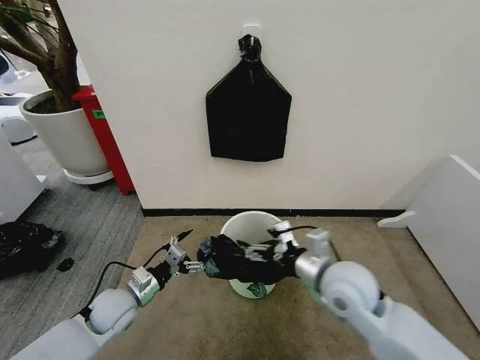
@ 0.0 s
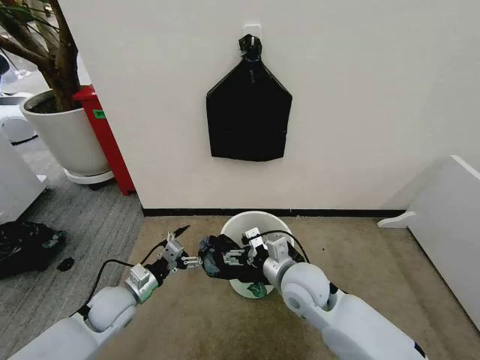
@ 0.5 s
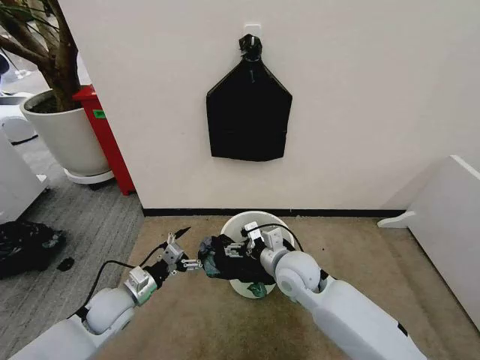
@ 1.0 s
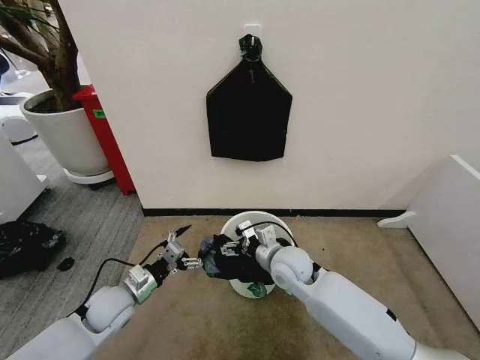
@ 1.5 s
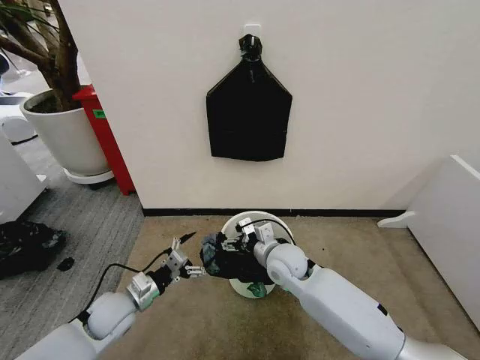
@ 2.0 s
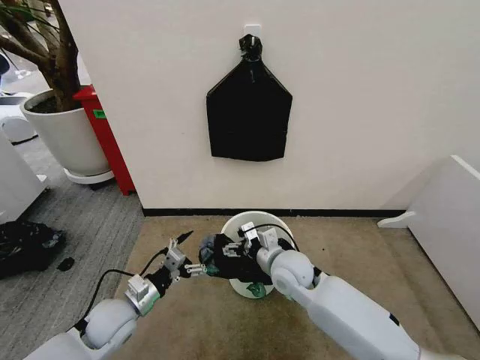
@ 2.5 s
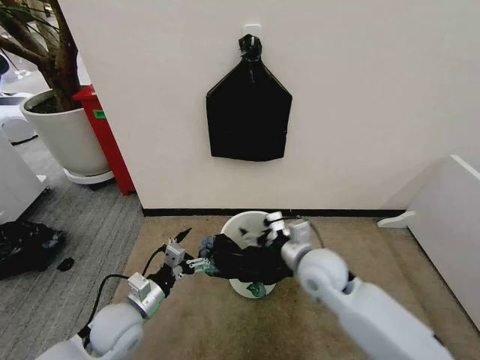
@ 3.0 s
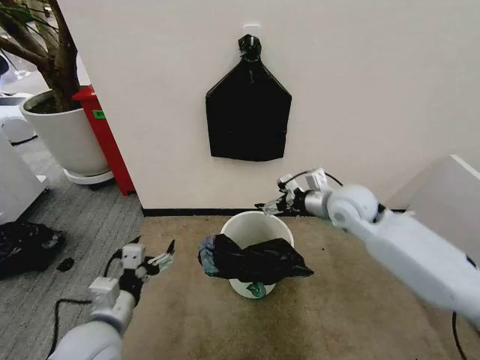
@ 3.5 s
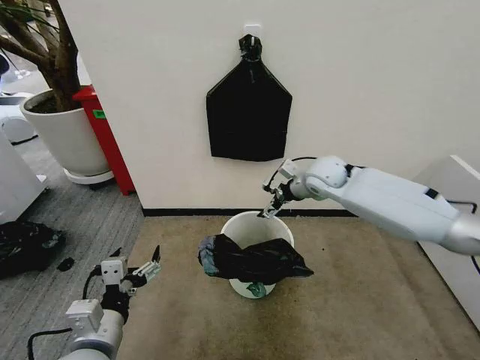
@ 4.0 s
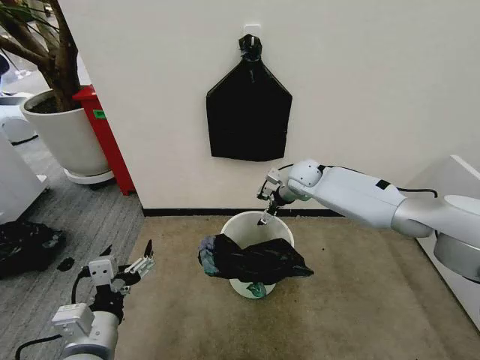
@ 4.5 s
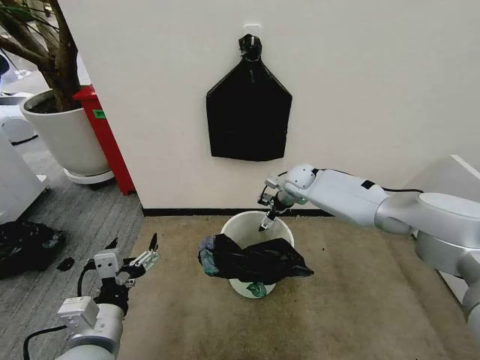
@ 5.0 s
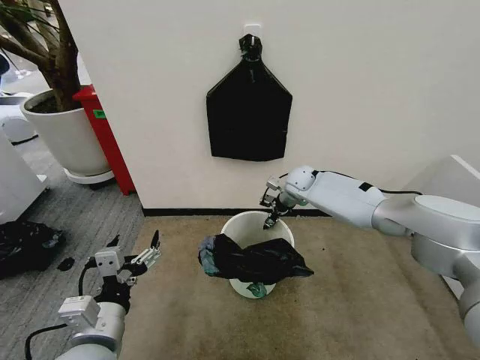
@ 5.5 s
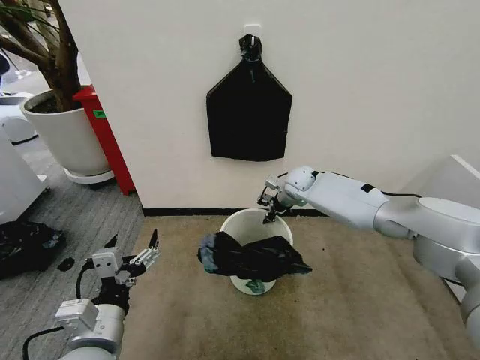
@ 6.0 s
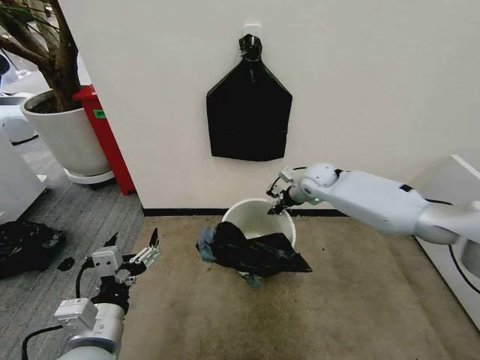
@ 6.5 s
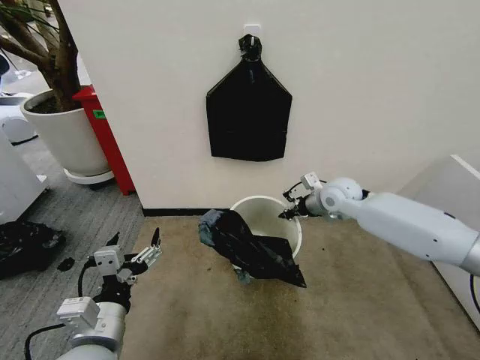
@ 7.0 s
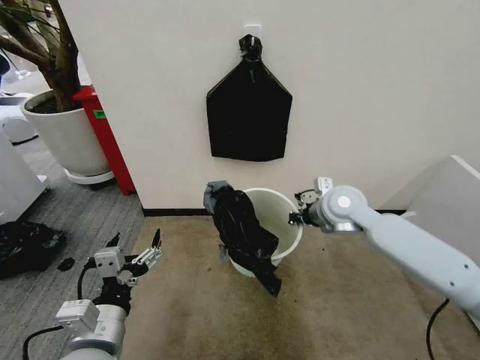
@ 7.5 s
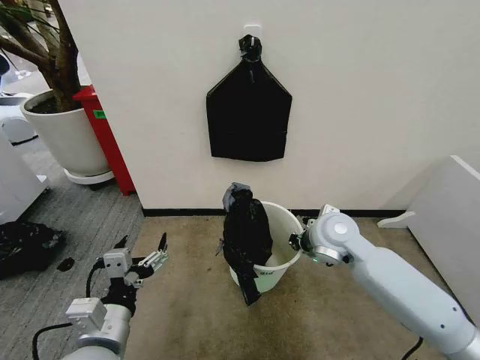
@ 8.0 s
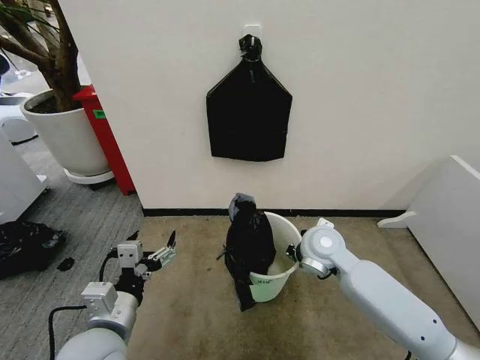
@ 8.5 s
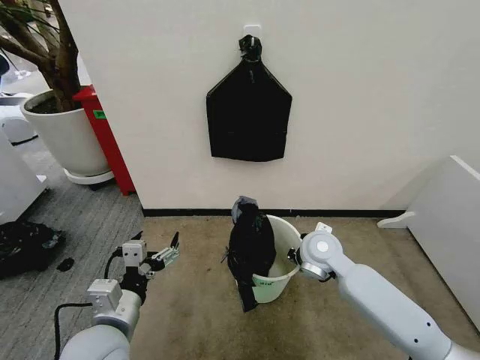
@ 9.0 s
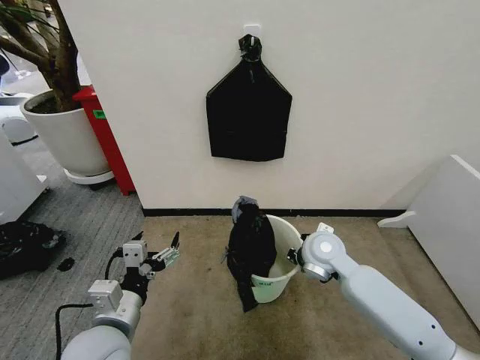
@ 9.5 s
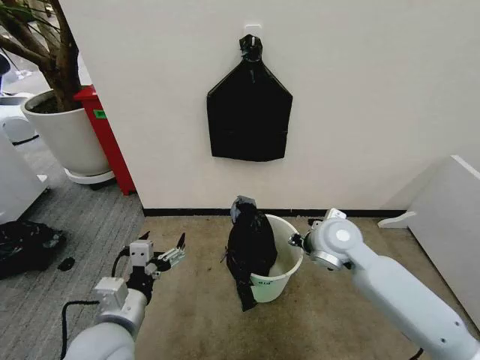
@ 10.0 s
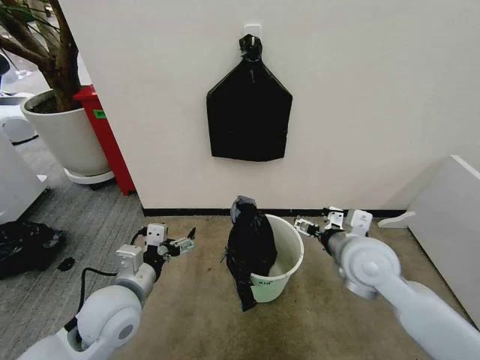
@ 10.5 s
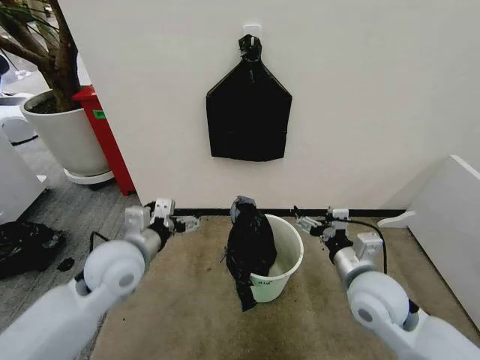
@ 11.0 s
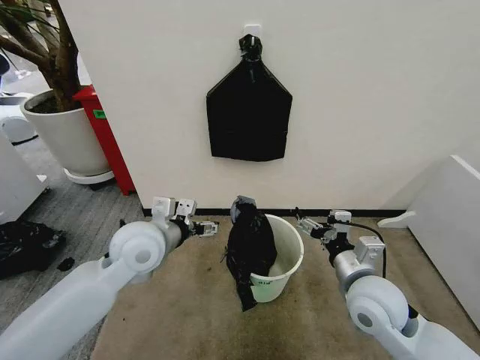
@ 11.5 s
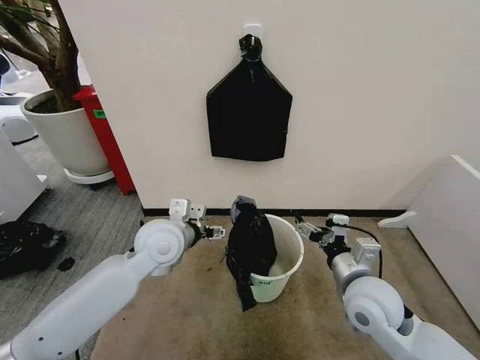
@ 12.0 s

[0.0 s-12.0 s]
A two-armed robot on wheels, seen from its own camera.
Task of the whole recording: Place the garbage bag over the trash bin.
0.0 to 2.0 s: The right gripper moves forward, downward and to the left, approximately 15 cm.
2.0 to 4.0 s: The left gripper shifts about 20 cm backward and upward; the right gripper travels forward, upward and to the right by roughly 25 cm.
4.0 to 6.0 s: The right gripper heads downward and forward, covering roughly 10 cm, and closes up.
6.0 to 8.0 s: The right gripper is displaced backward by approximately 20 cm.
8.0 to 10.0 s: The right gripper opens its fingers.
10.0 to 12.0 s: The left gripper moves forward, roughly 15 cm. Meanwhile the right gripper heads backward, covering some 10 cm, and opens.

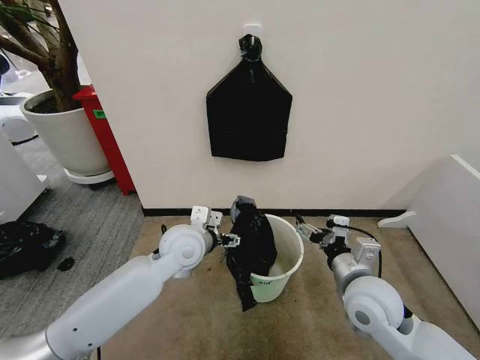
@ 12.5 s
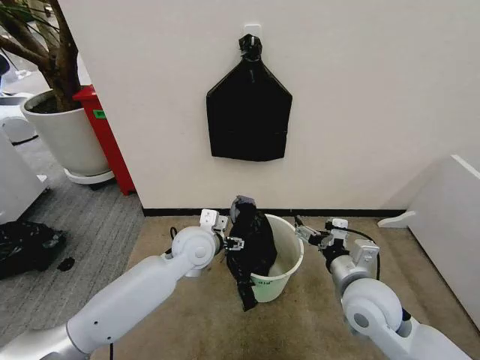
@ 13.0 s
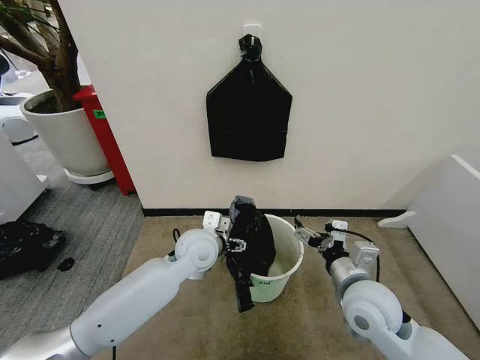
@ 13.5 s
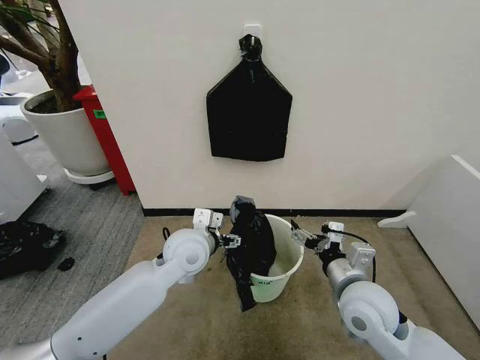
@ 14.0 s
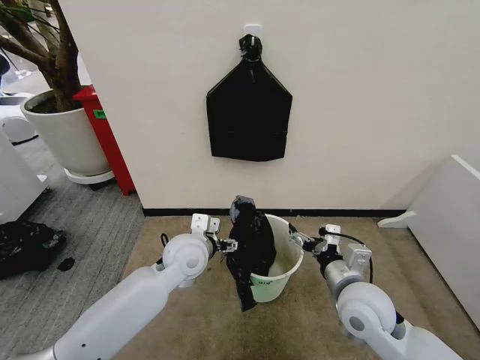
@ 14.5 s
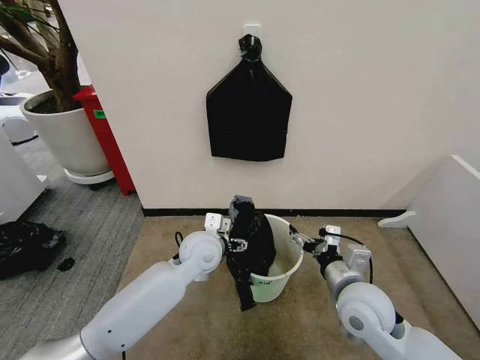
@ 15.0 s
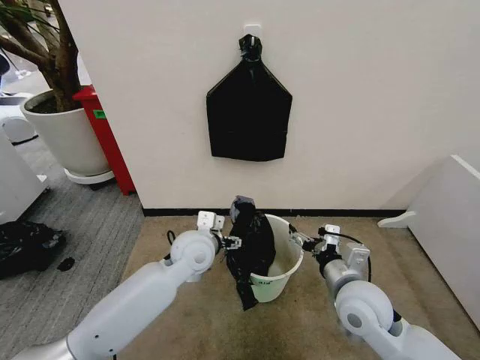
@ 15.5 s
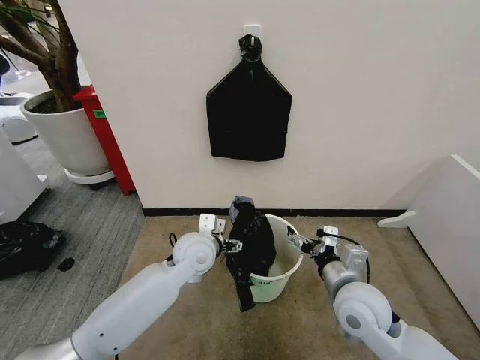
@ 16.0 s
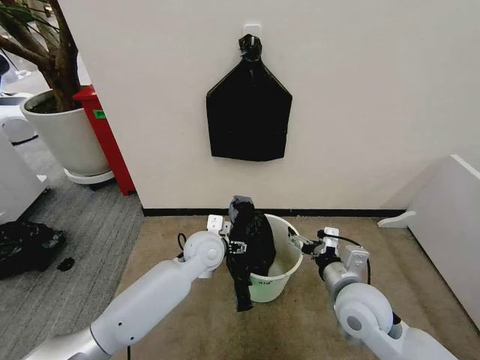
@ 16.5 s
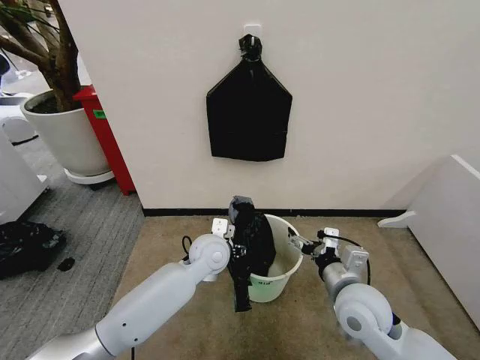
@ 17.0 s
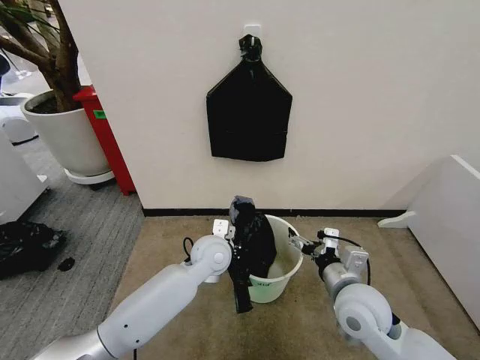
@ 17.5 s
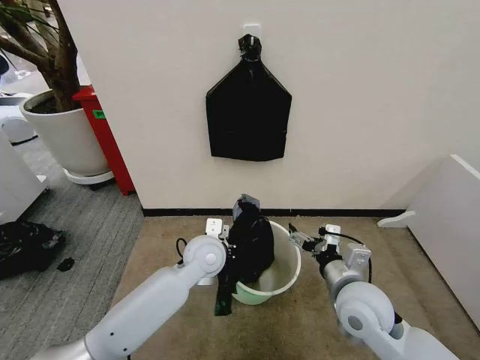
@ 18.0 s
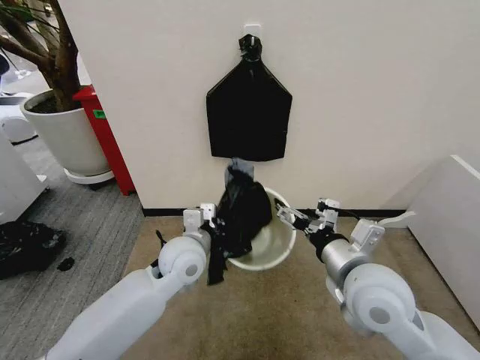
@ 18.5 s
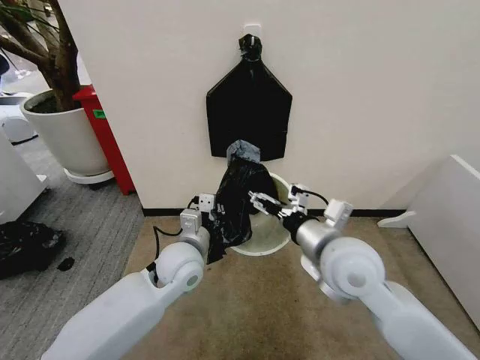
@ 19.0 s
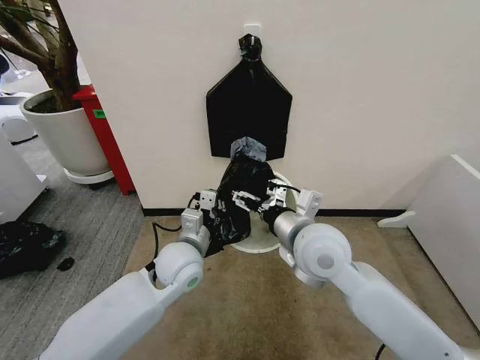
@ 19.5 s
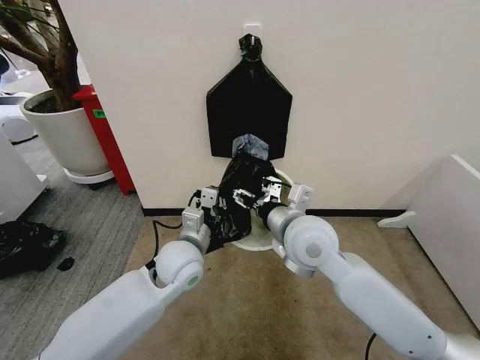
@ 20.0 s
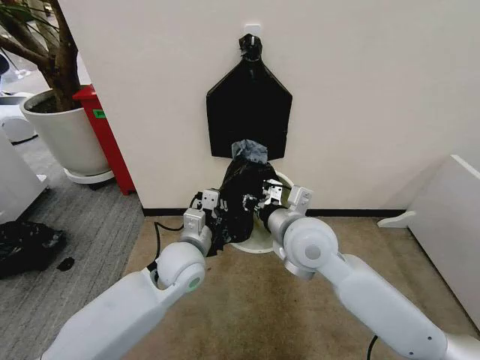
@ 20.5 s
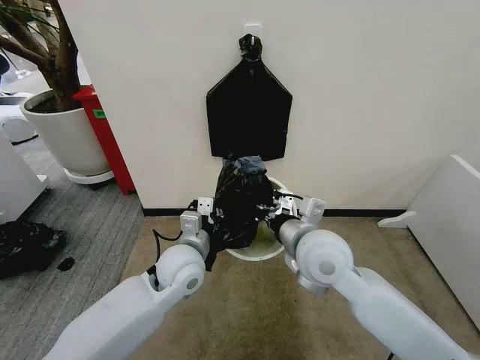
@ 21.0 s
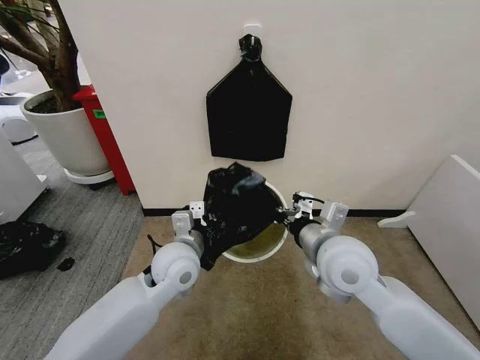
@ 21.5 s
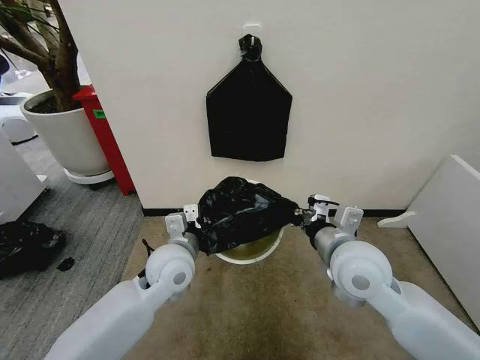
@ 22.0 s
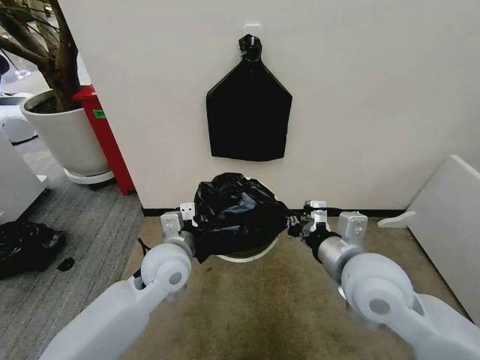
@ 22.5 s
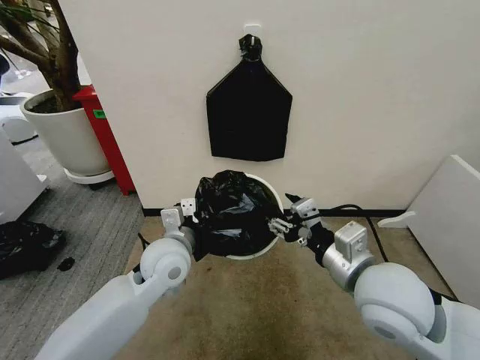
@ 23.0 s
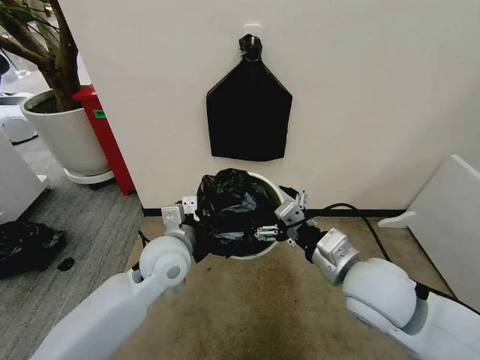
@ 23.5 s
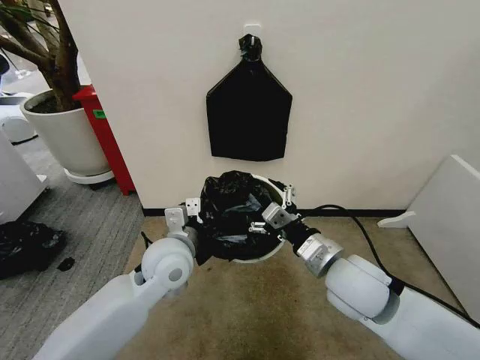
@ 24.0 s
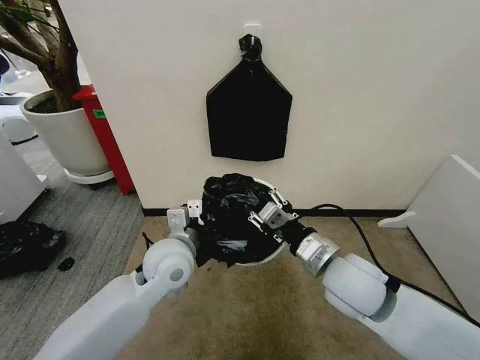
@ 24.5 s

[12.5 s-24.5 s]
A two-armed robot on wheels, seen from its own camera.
Task of the whole recording: Place the garbage bag over the trash bin.
12.5 to 14.5 s: There are only small adjustments of the grippers.
14.5 to 16.5 s: The left gripper moves approximately 5 cm.
16.5 to 18.5 s: The left gripper heads backward, covering about 5 cm, and closes its fingers, while the right gripper shifts roughly 10 cm upward.
18.5 to 20.5 s: The right gripper shifts some 10 cm forward and to the left, and closes up.
20.5 to 22.5 s: The right gripper shifts about 10 cm to the right and backward.
22.5 to 24.5 s: The right gripper opens and closes again.

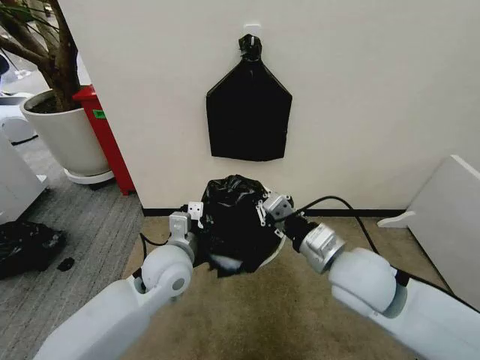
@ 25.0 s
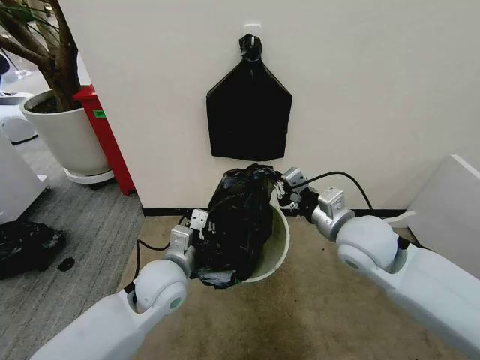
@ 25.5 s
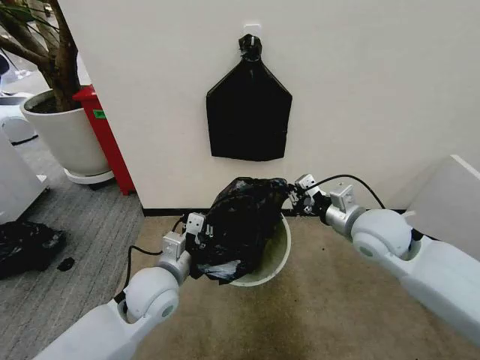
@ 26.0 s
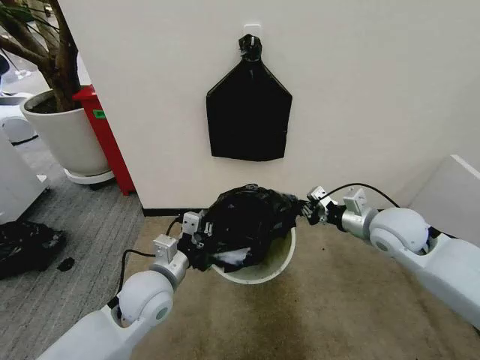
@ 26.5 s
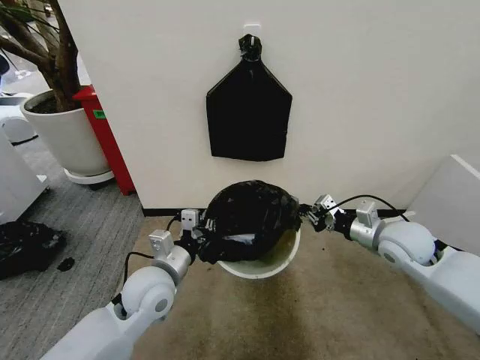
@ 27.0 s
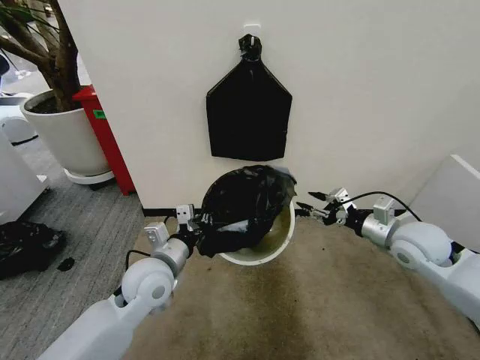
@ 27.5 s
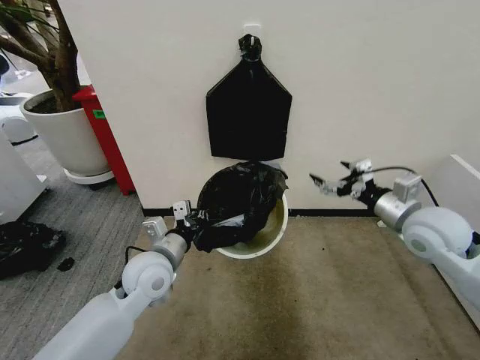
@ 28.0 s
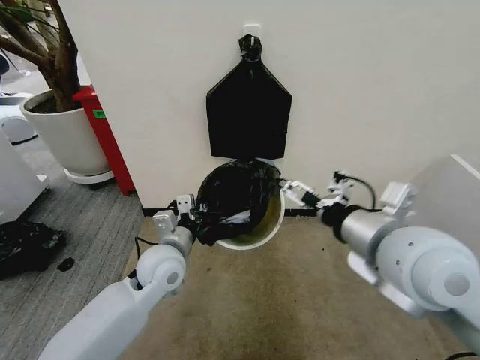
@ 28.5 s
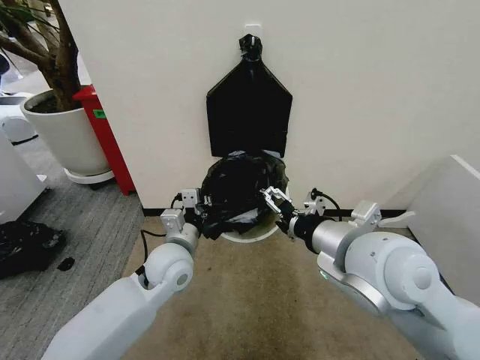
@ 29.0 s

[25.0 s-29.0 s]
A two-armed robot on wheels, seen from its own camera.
Task of the whole recording: Place the garbage bag over the trash bin.
25.0 to 27.0 s: The right gripper heads to the right and forward, covering about 20 cm, while the left gripper shifts by some 5 cm.
27.0 to 29.0 s: The right gripper is displaced to the left, upward and backward by some 25 cm, and opens. The left gripper moves about 5 cm.
